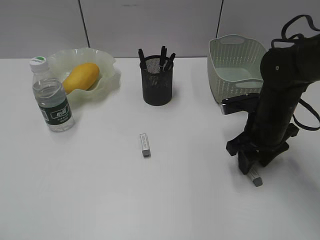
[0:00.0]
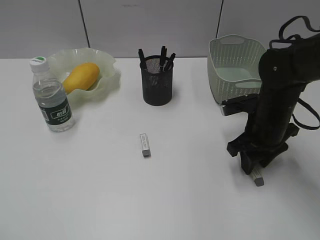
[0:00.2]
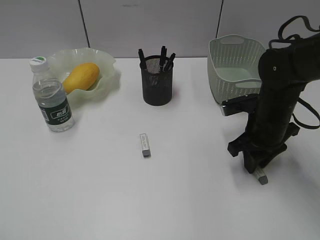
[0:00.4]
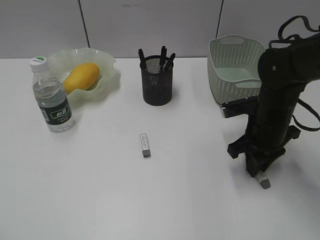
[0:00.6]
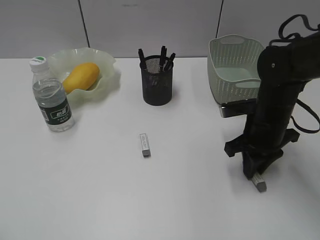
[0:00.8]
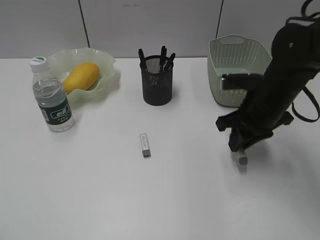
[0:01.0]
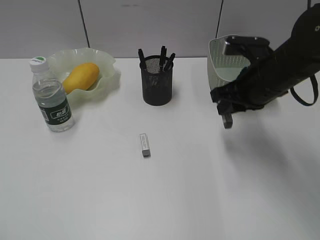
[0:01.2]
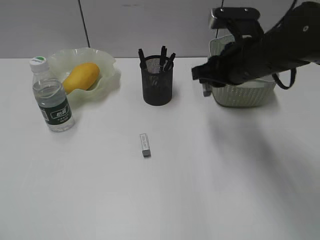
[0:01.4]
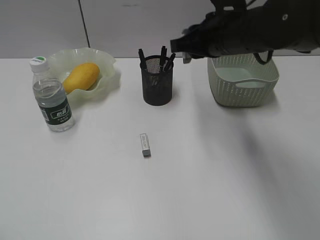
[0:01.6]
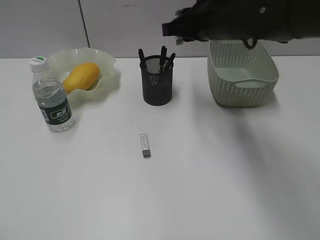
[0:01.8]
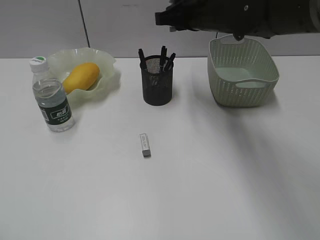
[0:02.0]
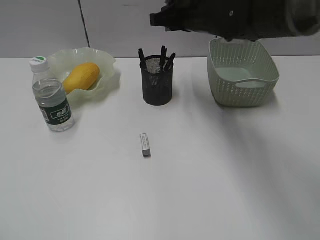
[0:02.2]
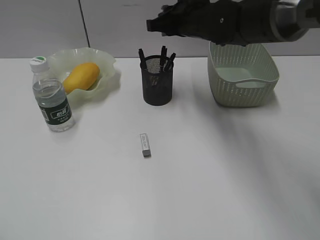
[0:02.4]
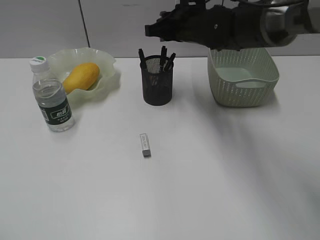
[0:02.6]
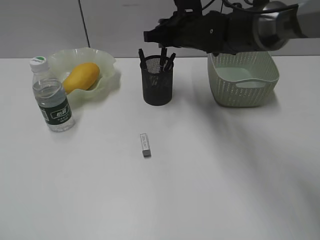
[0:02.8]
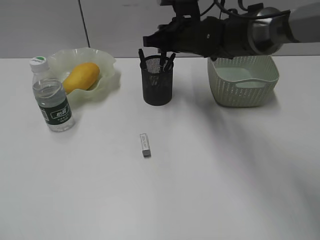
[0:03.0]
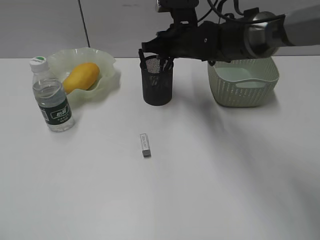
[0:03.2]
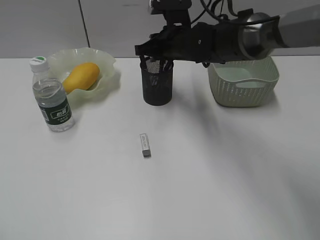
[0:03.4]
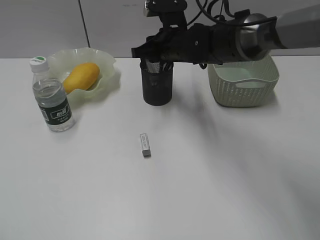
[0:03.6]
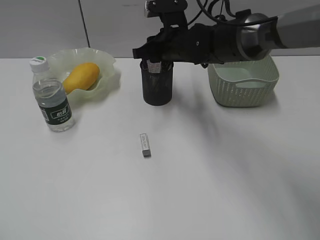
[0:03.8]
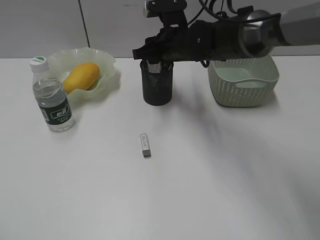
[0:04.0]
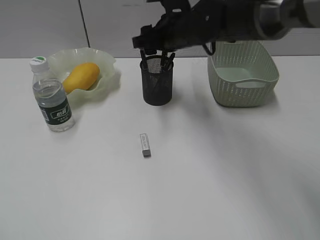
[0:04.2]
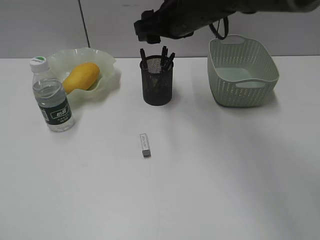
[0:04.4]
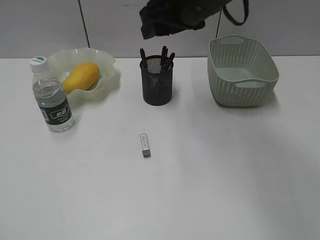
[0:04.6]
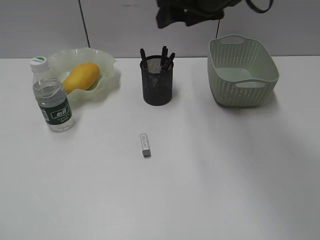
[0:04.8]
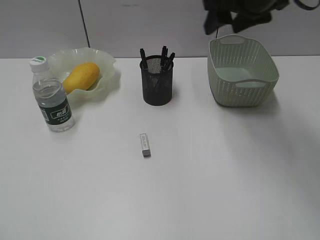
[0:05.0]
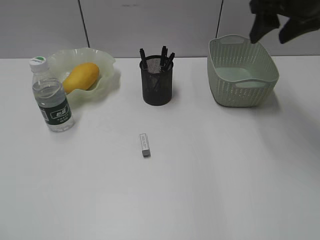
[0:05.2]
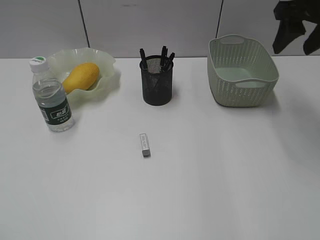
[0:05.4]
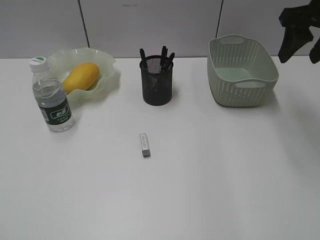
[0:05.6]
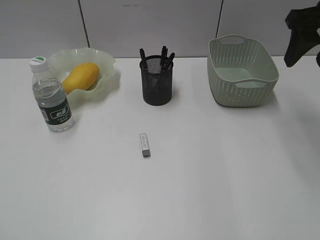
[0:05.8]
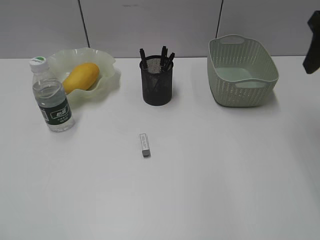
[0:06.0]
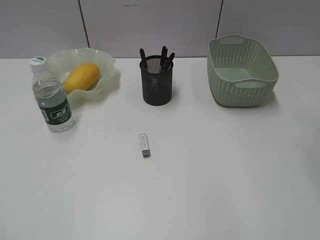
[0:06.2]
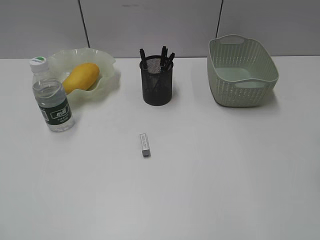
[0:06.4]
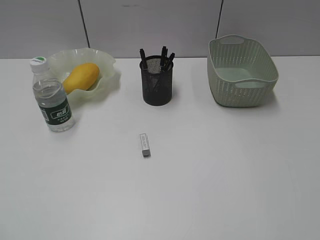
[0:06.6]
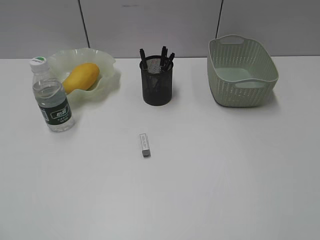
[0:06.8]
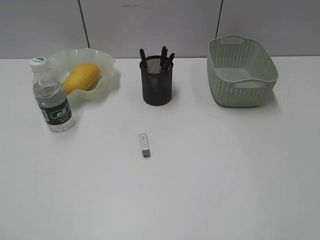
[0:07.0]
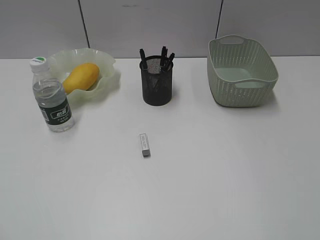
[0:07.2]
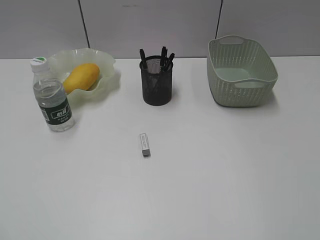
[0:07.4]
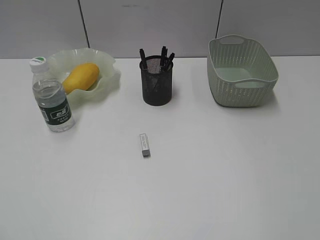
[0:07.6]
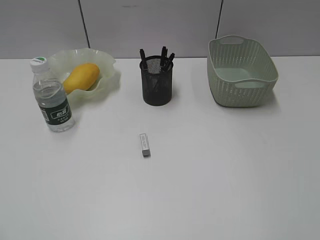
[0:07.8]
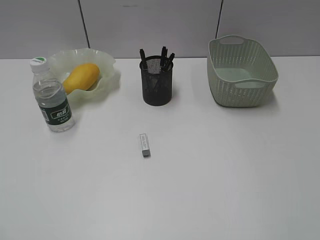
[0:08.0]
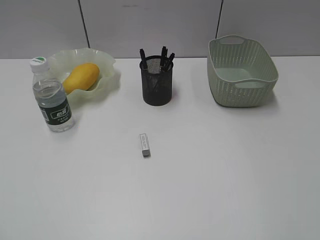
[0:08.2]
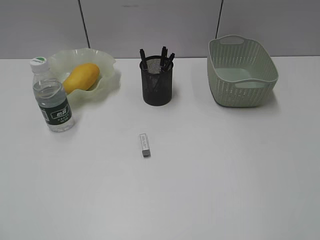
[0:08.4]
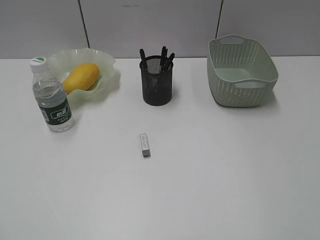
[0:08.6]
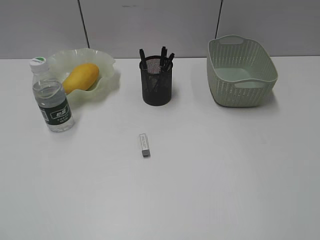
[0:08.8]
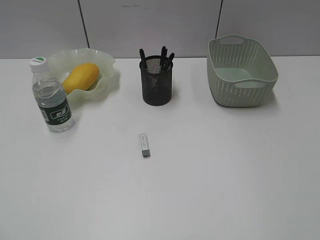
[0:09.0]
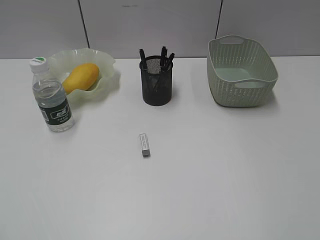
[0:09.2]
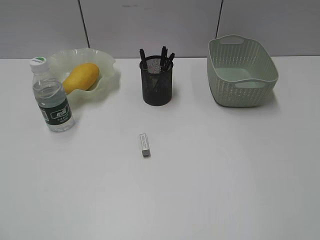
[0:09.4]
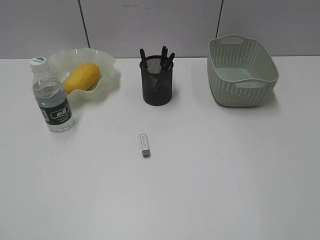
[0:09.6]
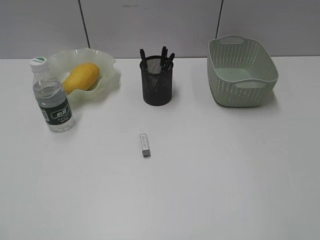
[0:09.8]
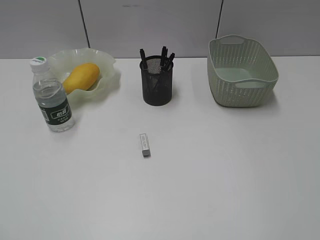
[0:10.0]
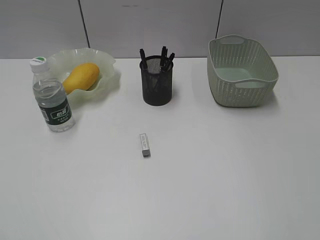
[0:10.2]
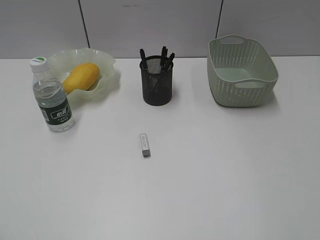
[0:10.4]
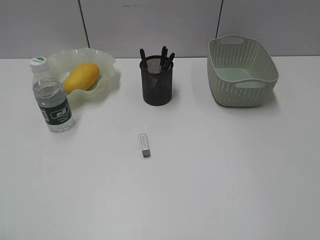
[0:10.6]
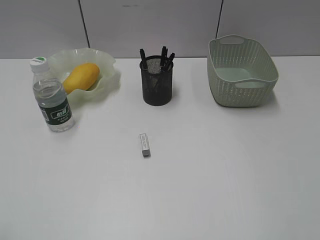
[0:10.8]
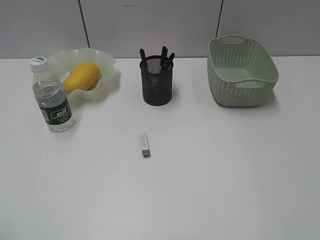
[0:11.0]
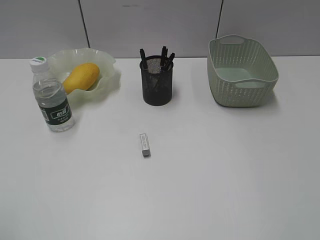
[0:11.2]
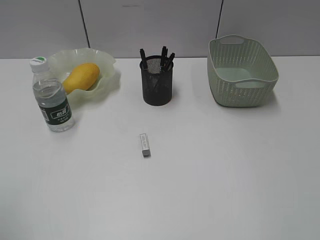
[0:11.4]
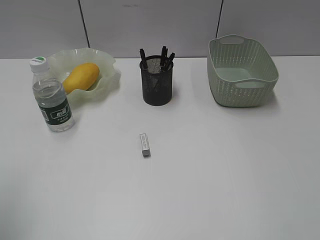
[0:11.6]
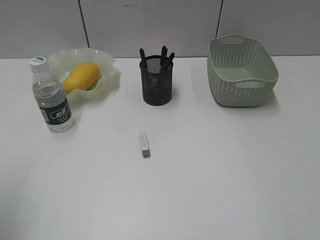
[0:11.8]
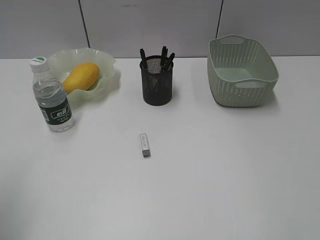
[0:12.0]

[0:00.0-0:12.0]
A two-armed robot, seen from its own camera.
Step, 0:00.8 to 0:04.0: Place the eraser in pen holder with right gripper.
0:00.0 to 0:01.6: The right gripper travels upward and to the left by about 15 cm, and closes up.
0:01.6 to 0:03.0: The right gripper travels forward, downward and to the left by about 15 cm.
0:03.0 to 0:04.4: The right gripper is displaced upward by approximately 5 cm, and opens up.
0:04.4 to 0:06.0: The right gripper is displaced to the right and backward by roughly 25 cm.
0:06.0 to 0:07.6: The right gripper travels backward by some 35 cm.
0:07.6 to 0:09.0: Neither gripper changes place.
0:10.4 to 0:12.0: The left gripper goes about 15 cm forward.

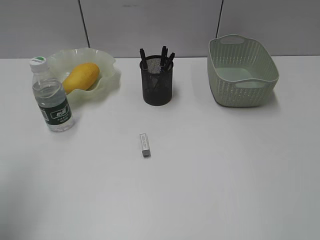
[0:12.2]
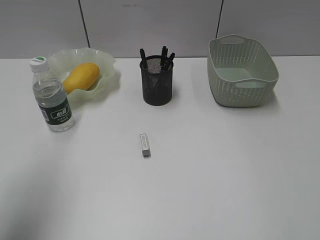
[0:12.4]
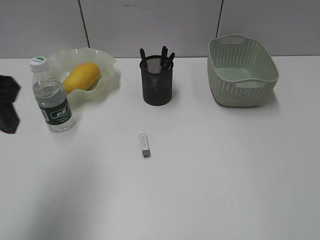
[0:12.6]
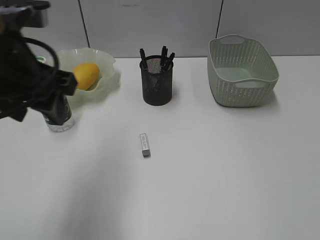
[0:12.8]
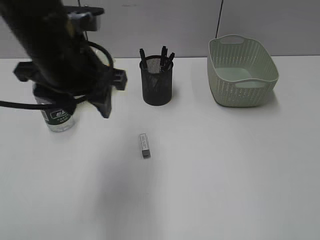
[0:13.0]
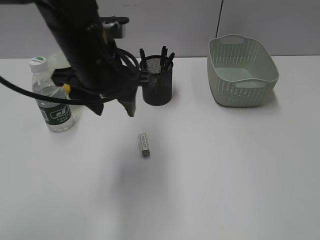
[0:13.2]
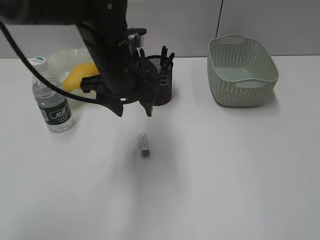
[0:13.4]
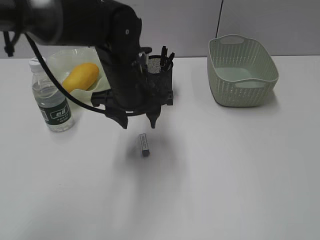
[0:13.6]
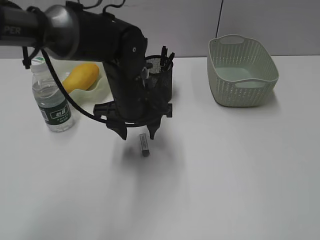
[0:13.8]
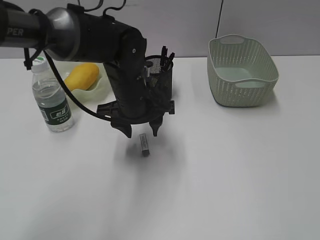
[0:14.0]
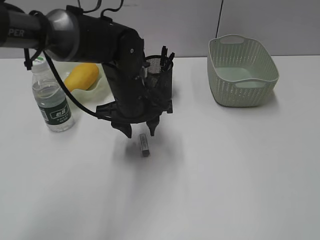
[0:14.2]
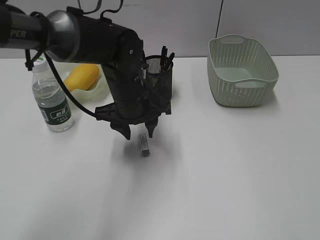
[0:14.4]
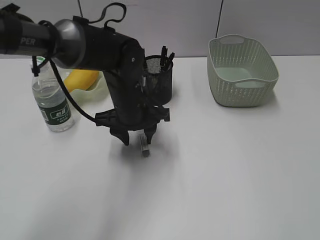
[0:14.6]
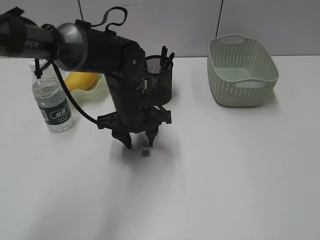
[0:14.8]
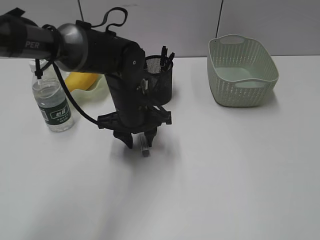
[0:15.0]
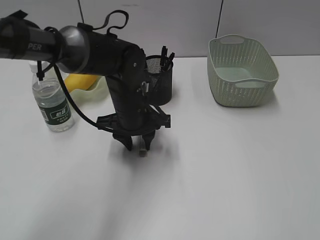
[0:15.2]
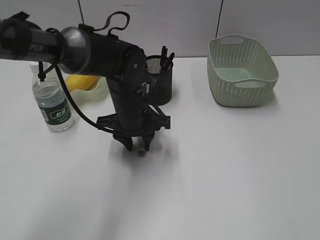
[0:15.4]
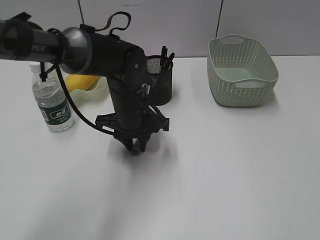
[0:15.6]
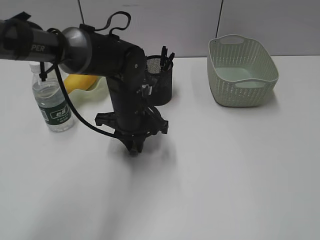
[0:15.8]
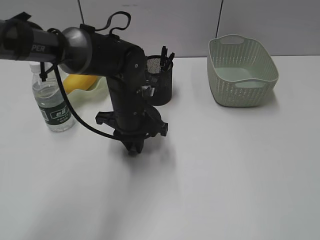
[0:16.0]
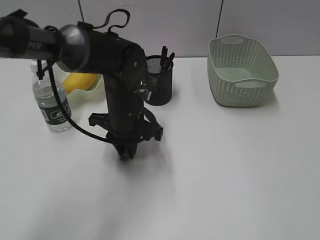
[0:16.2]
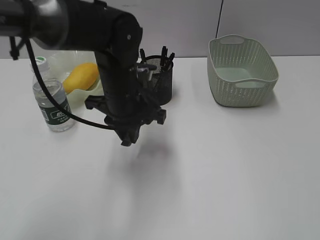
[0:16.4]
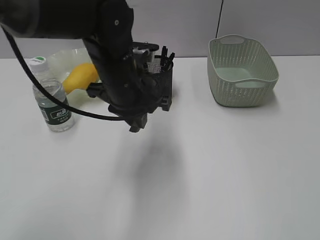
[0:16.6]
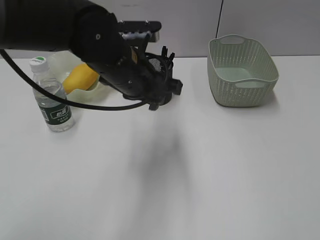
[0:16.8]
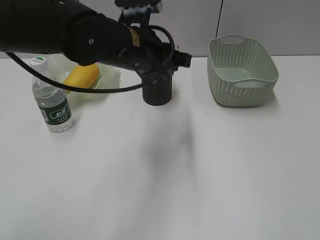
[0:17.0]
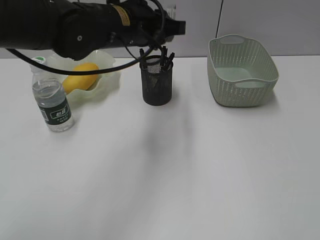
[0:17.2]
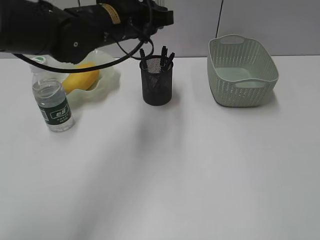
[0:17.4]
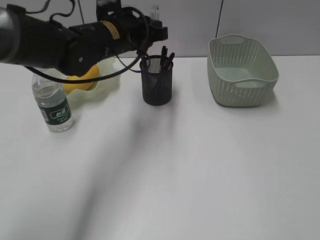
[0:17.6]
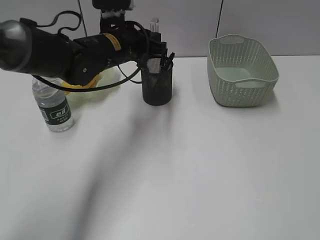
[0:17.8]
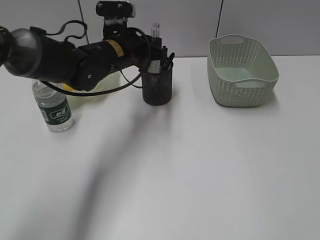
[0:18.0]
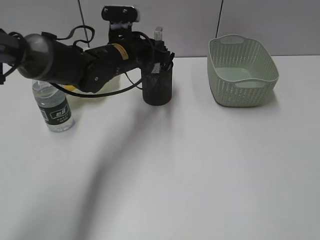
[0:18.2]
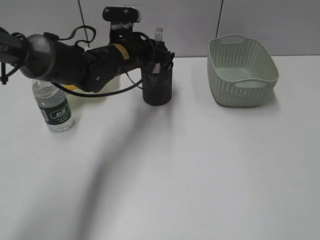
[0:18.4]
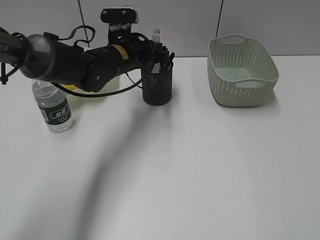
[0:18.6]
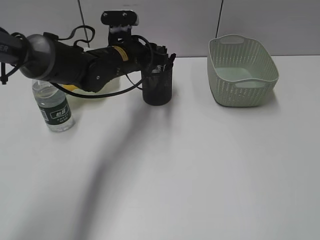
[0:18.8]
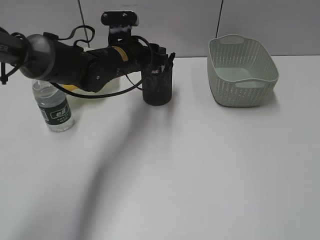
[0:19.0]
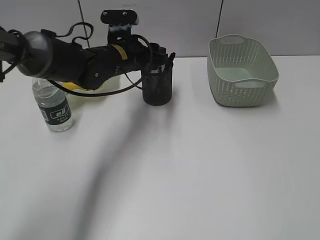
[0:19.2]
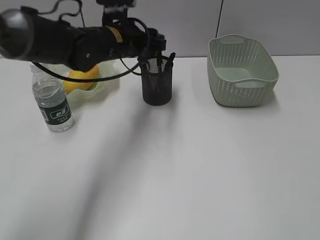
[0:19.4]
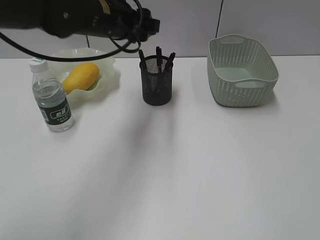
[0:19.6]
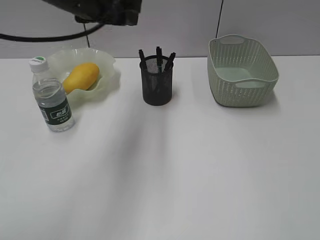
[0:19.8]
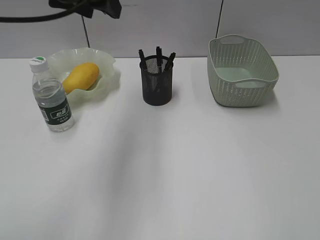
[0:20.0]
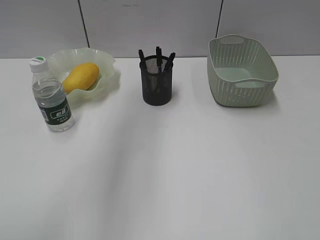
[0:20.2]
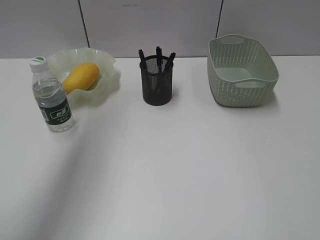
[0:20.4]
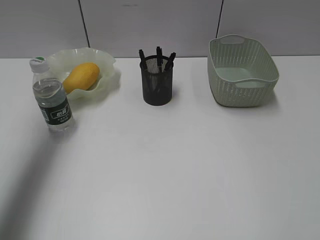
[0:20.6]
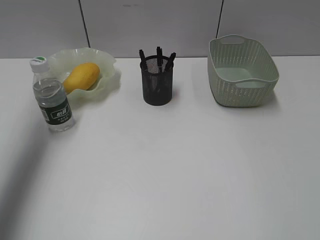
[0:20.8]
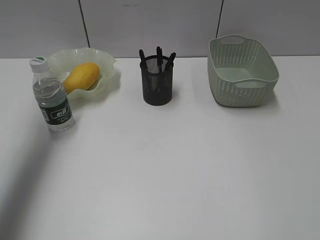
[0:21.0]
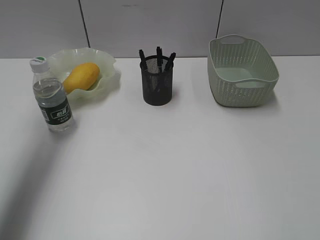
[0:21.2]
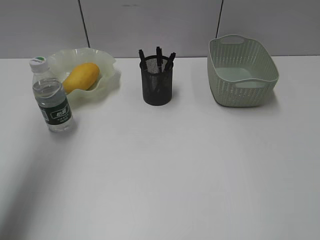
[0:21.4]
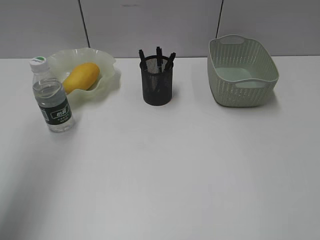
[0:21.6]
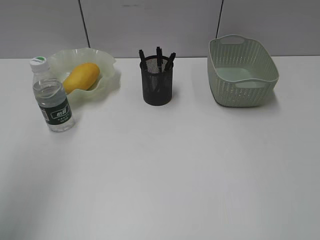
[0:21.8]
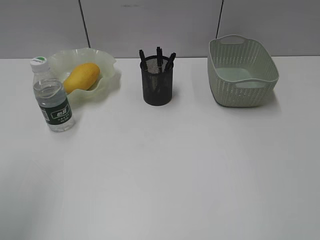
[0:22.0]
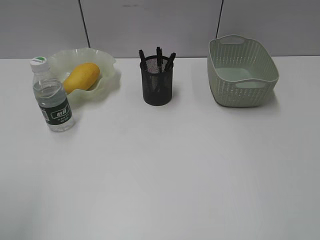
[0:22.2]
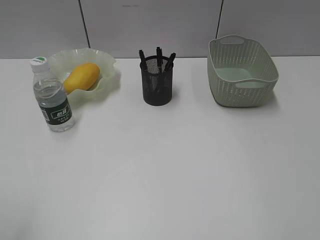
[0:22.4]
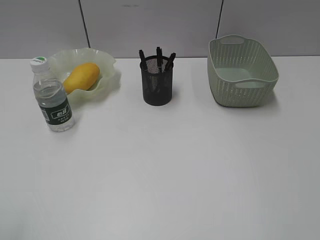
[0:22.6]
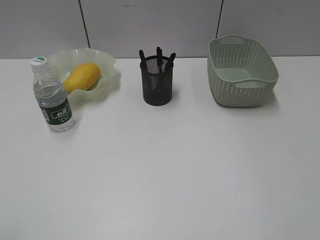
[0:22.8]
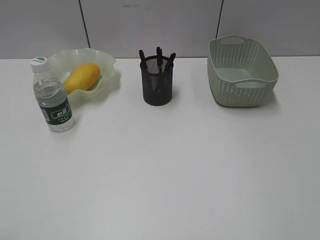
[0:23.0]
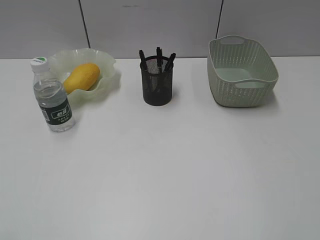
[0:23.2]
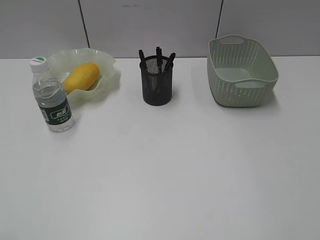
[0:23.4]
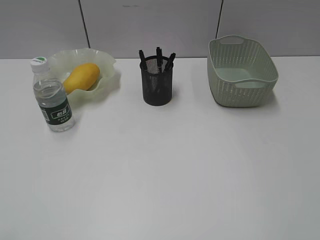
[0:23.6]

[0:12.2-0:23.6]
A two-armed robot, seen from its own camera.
Step, 0:12.2 to 0:15.8: Grasp the eraser with left gripper.
Step, 0:16.0 to 0:19.0: Place the eraser in pen holder with left gripper.
0:12.2 to 0:13.6: The left gripper goes approximately 35 cm to the right, forward and downward.
0:13.6 to 0:15.0: The left gripper goes roughly 5 cm downward.
0:15.0 to 0:16.4: The left gripper moves roughly 5 cm, and closes up.
0:16.4 to 0:17.8: The left gripper shifts about 5 cm forward.
0:17.8 to 0:19.4: The left gripper opens.
0:19.4 to 0:20.8: The left gripper goes about 30 cm to the left and upward.
0:20.8 to 0:22.2: The left gripper travels backward by approximately 30 cm.
